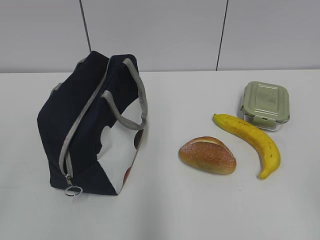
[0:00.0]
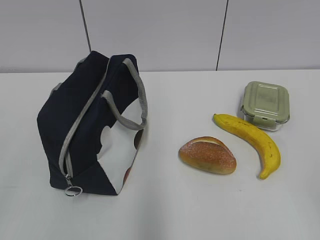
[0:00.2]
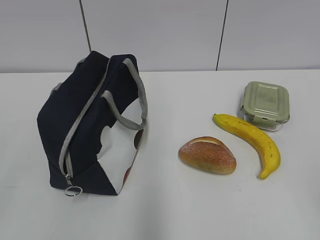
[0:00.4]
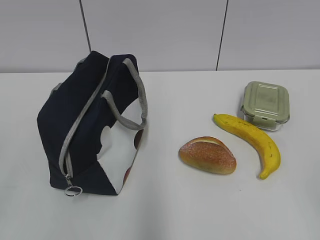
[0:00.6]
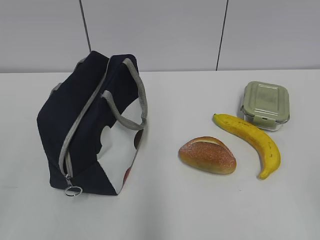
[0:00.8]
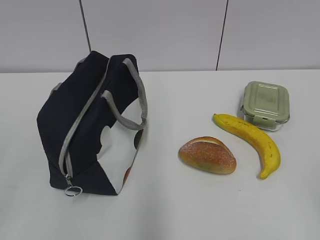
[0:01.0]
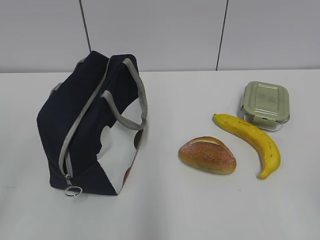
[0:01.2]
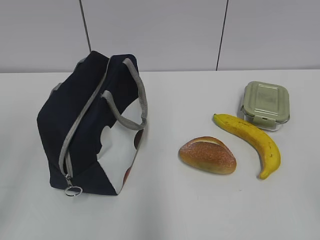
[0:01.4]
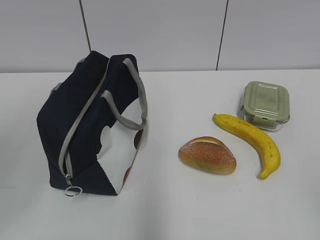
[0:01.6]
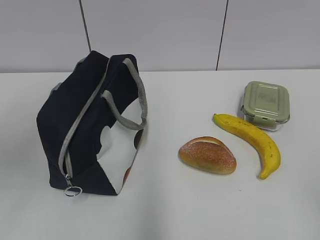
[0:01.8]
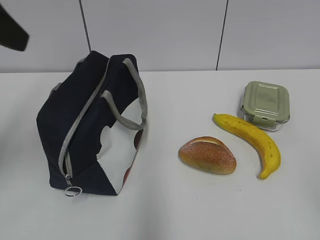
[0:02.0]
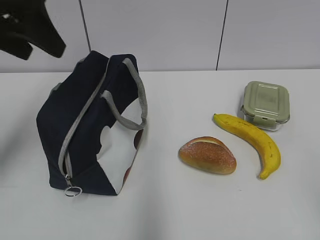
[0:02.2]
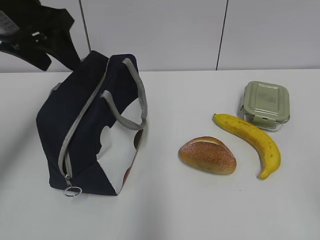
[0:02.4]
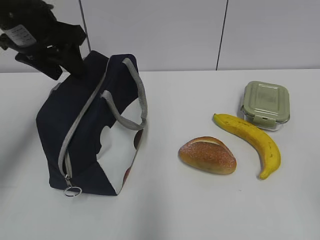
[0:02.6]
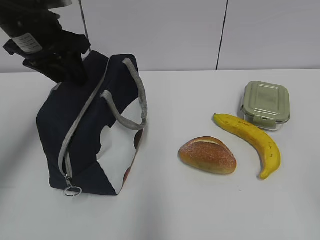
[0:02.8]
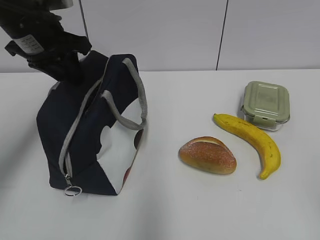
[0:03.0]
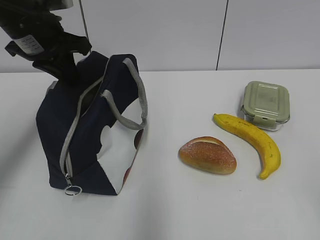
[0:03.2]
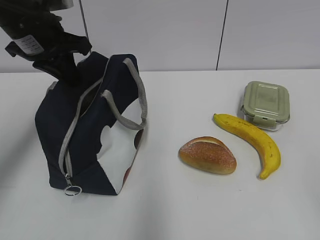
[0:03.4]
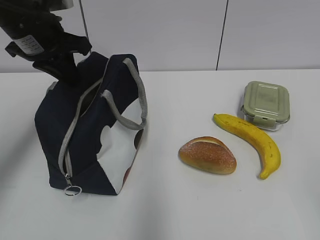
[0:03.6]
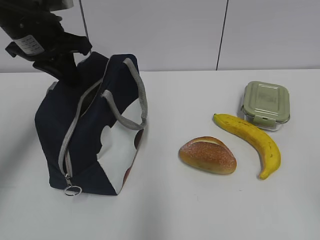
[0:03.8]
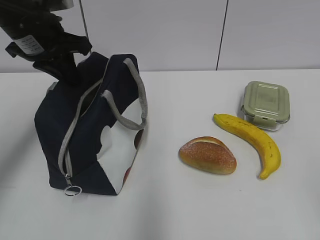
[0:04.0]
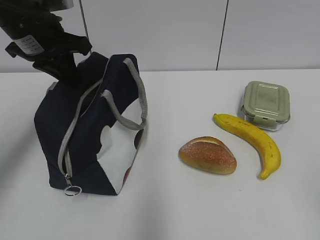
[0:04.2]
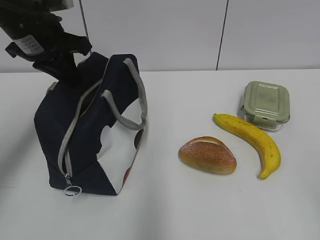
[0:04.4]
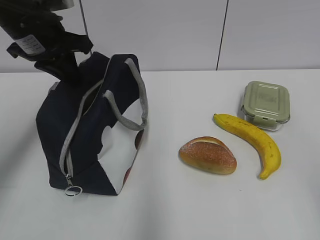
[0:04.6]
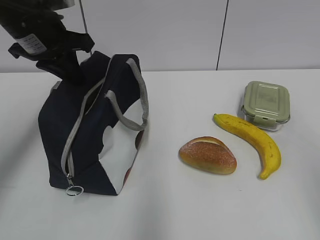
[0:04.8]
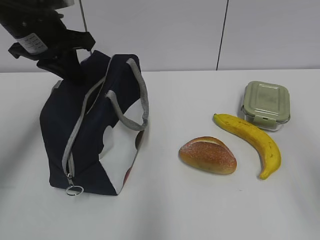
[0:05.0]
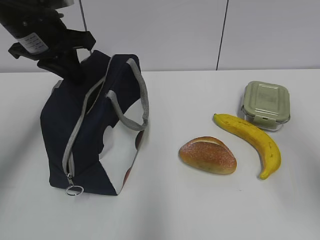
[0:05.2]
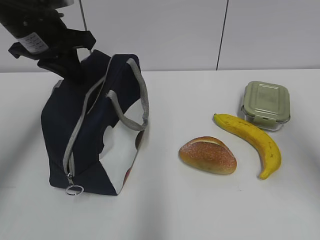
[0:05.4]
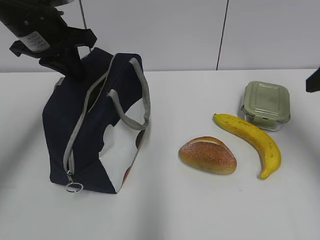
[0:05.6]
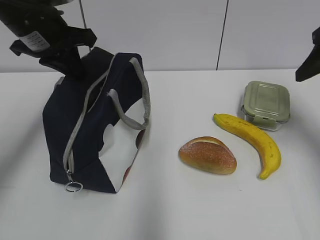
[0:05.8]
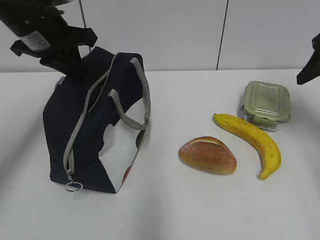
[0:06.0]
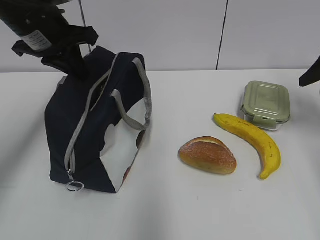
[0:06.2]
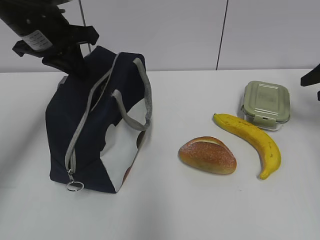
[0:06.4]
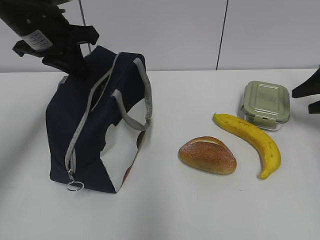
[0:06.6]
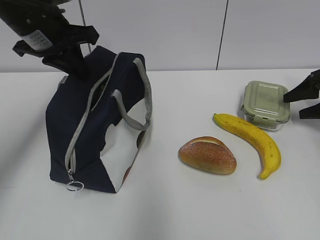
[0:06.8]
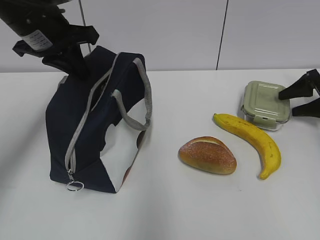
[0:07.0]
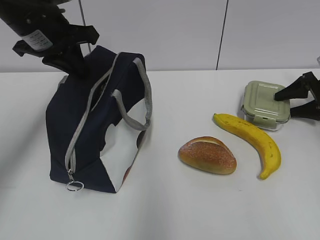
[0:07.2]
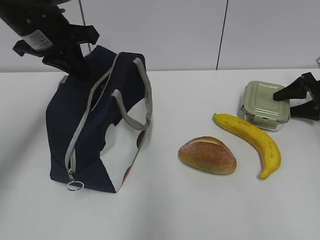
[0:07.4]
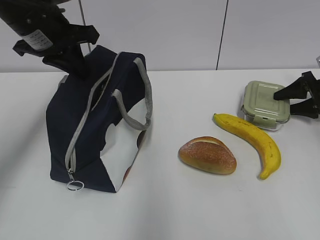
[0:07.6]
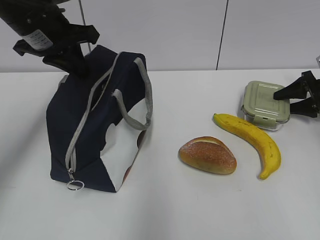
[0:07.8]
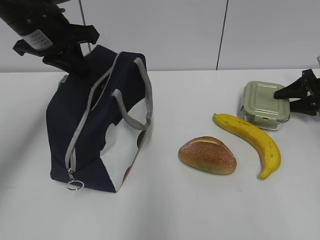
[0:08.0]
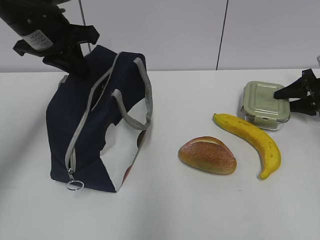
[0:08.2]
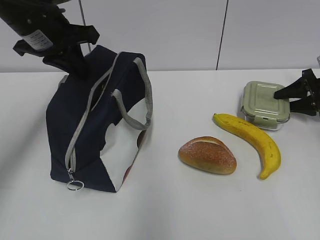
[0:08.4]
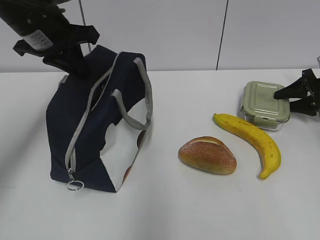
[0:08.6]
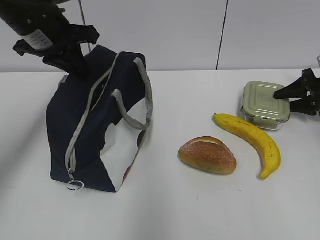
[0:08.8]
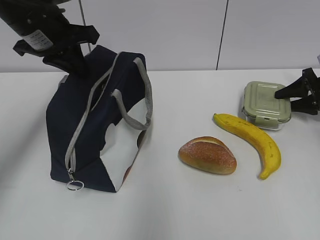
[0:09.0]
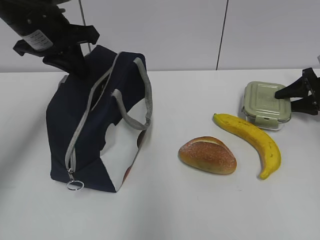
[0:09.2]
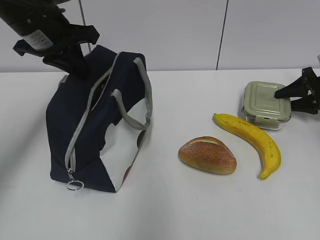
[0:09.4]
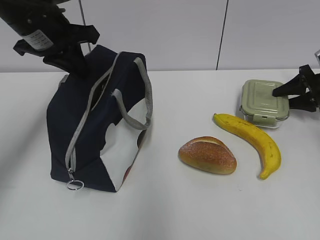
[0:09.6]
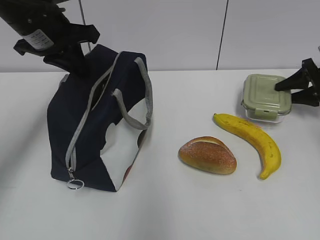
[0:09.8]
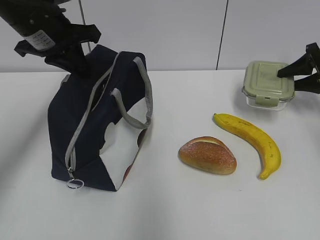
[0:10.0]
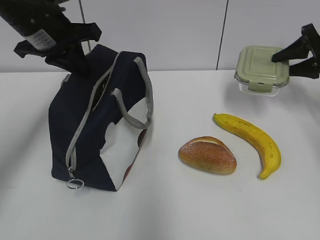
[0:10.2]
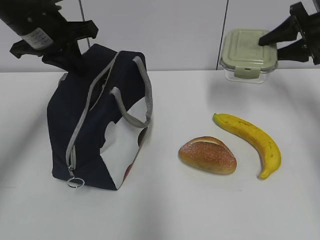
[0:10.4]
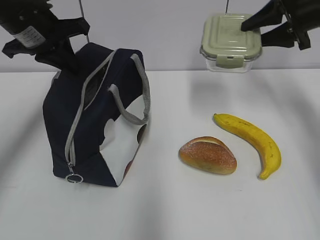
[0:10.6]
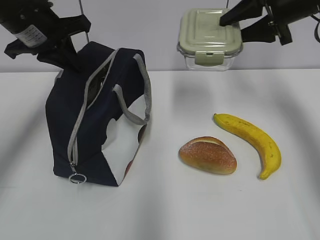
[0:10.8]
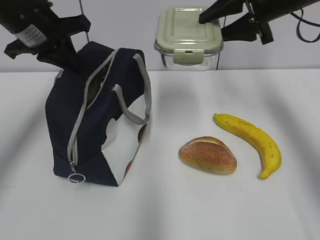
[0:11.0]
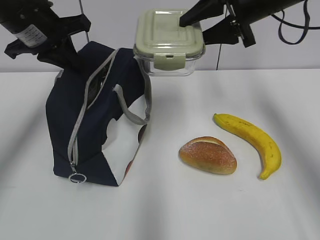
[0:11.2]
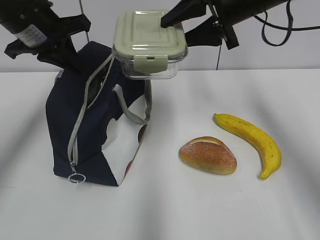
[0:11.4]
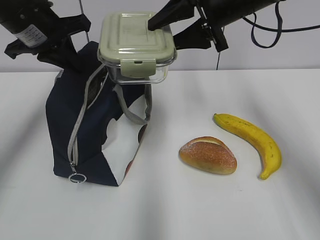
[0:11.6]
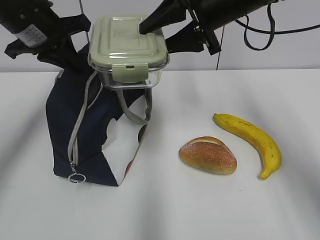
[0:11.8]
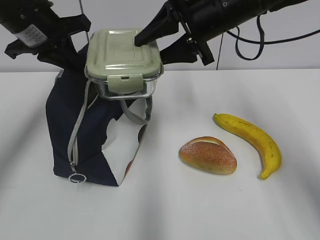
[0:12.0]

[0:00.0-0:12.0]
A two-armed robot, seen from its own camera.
0:01.6 to 0:03.0: The left gripper moves forward, approximately 25 cm, and closes up.
0:03.0 to 0:04.4: The left gripper closes its fingers.
0:04.4 to 0:06.0: The right gripper moves forward, roughly 35 cm.
0:06.0 to 0:07.6: The right gripper is displaced downward, forward and to the right by approximately 20 cm.
0:07.6 to 0:09.0: The two grippers keep their place.
0:09.0 to 0:10.4: The right gripper heads upward and to the left, covering about 15 cm.
0:10.4 to 0:12.0: The right gripper goes approximately 25 cm to the left.

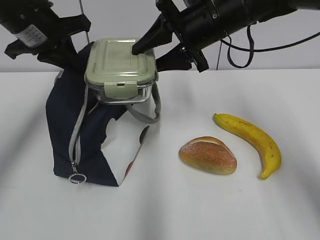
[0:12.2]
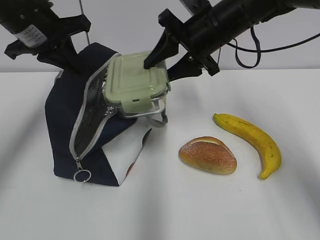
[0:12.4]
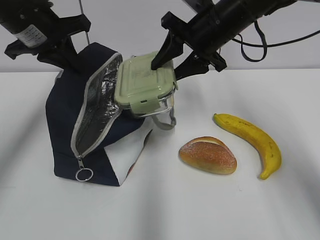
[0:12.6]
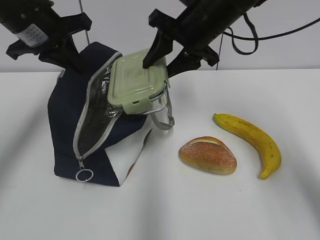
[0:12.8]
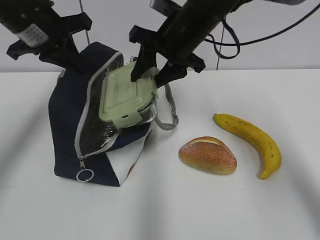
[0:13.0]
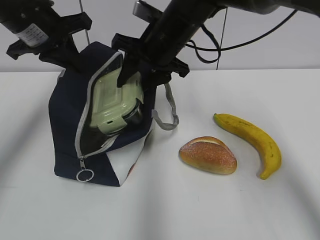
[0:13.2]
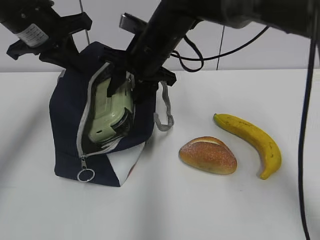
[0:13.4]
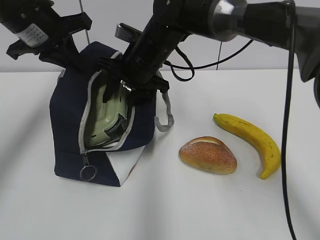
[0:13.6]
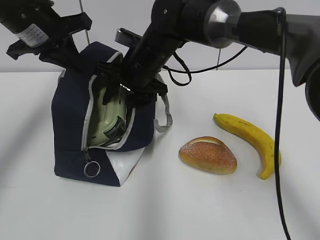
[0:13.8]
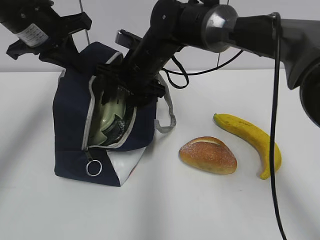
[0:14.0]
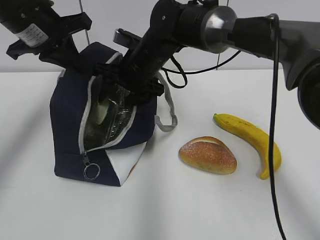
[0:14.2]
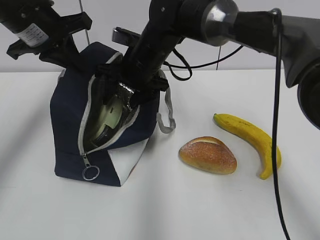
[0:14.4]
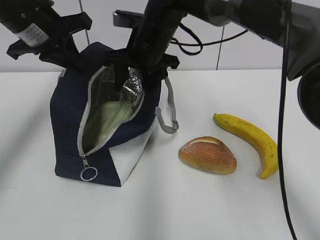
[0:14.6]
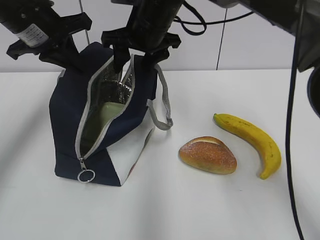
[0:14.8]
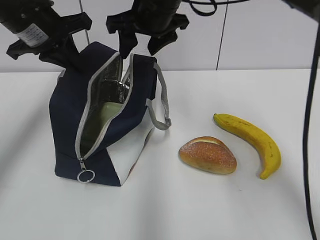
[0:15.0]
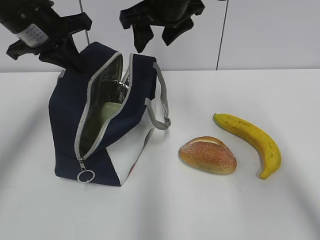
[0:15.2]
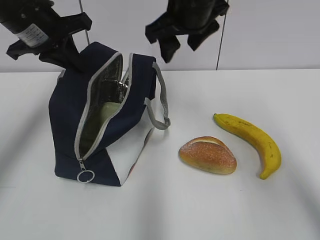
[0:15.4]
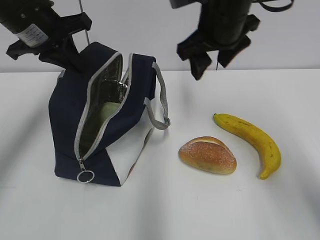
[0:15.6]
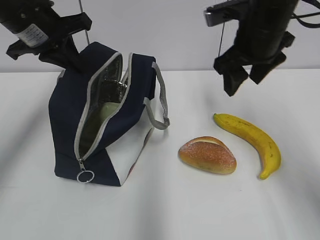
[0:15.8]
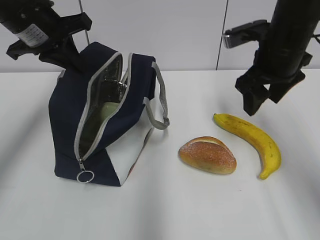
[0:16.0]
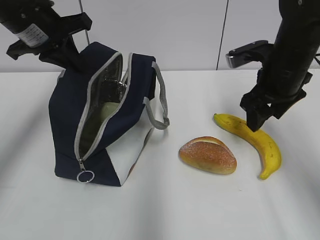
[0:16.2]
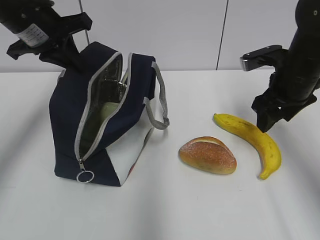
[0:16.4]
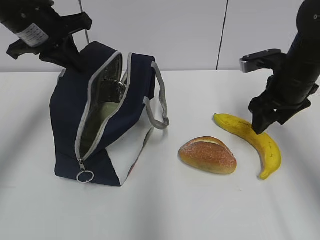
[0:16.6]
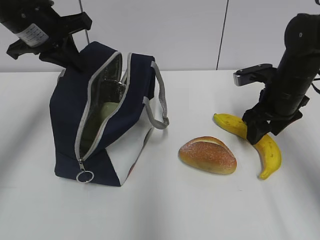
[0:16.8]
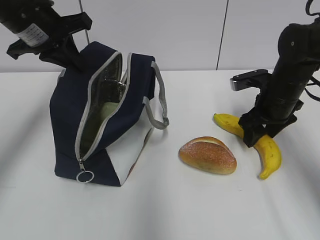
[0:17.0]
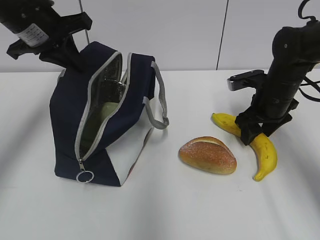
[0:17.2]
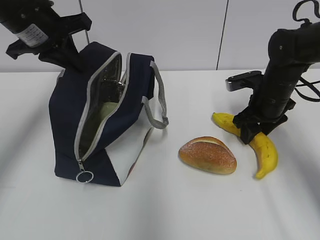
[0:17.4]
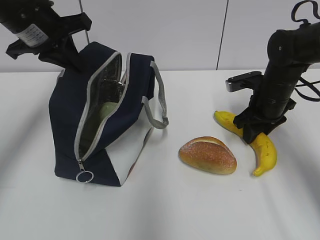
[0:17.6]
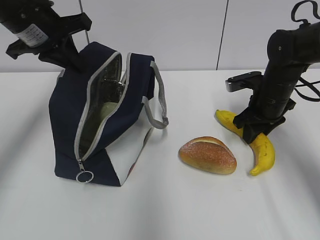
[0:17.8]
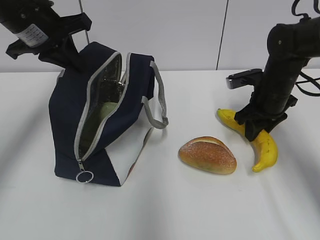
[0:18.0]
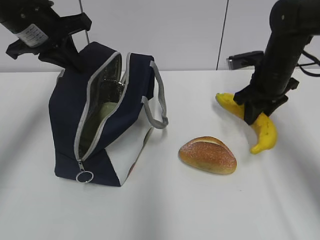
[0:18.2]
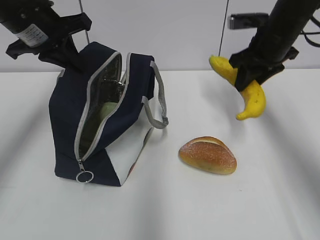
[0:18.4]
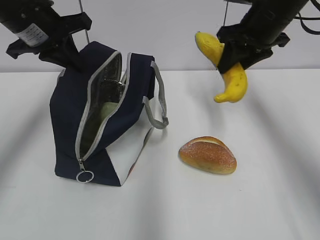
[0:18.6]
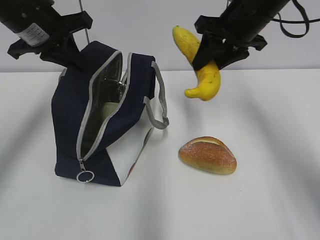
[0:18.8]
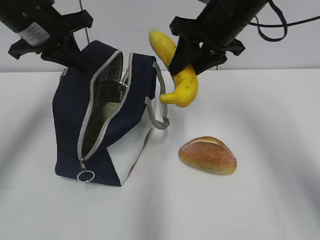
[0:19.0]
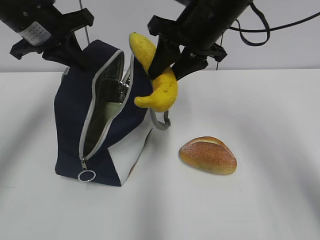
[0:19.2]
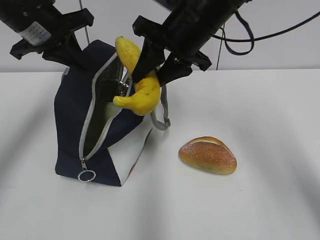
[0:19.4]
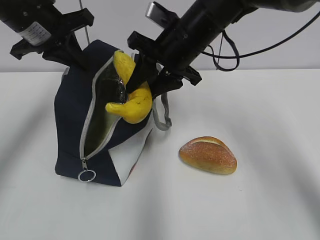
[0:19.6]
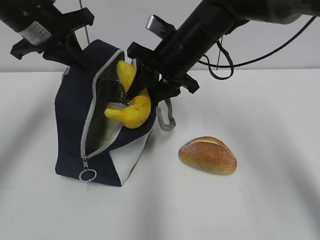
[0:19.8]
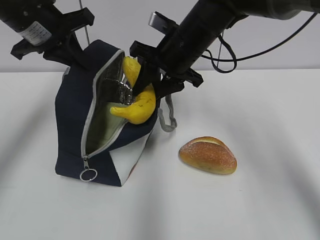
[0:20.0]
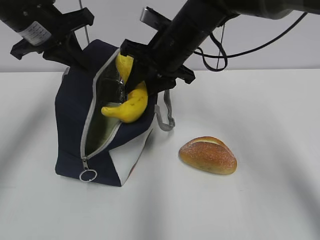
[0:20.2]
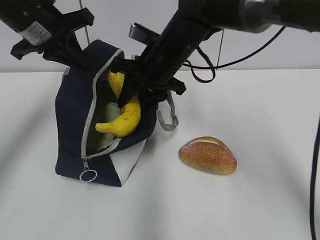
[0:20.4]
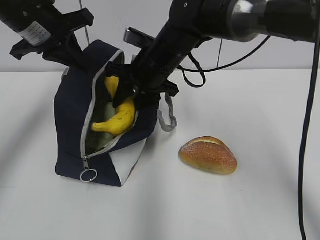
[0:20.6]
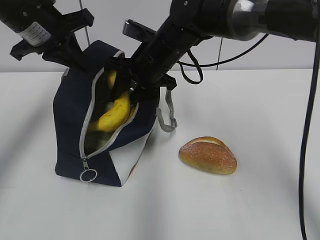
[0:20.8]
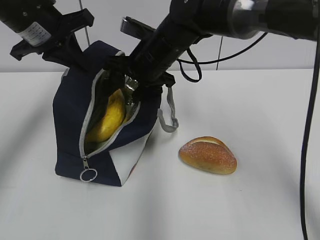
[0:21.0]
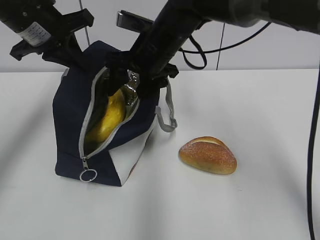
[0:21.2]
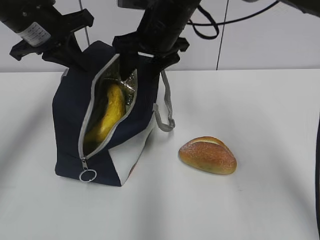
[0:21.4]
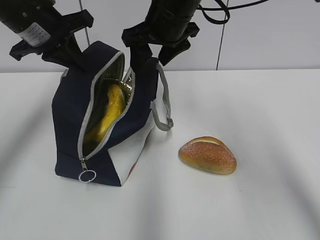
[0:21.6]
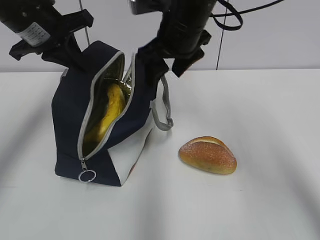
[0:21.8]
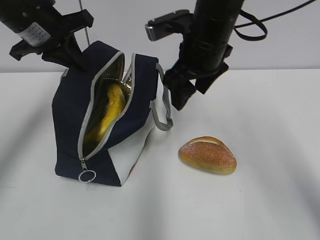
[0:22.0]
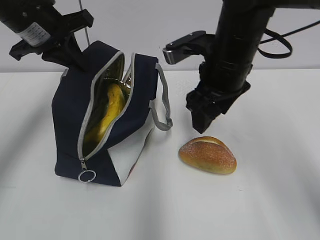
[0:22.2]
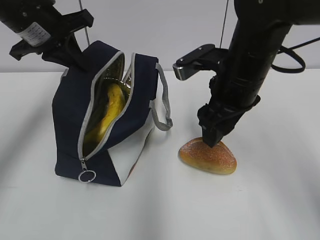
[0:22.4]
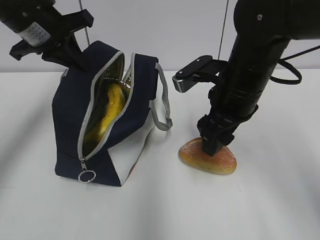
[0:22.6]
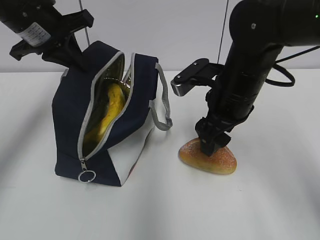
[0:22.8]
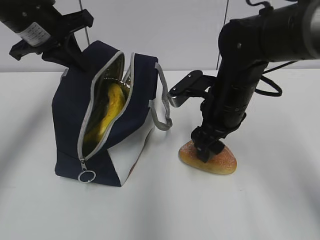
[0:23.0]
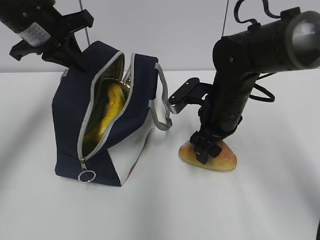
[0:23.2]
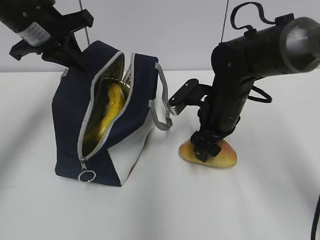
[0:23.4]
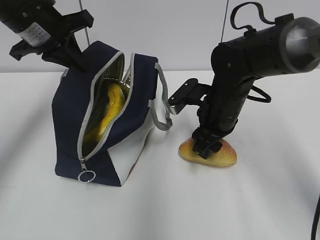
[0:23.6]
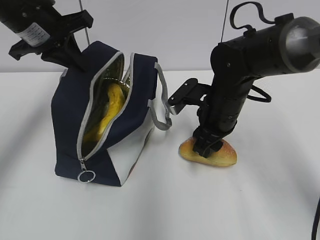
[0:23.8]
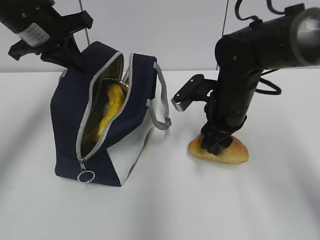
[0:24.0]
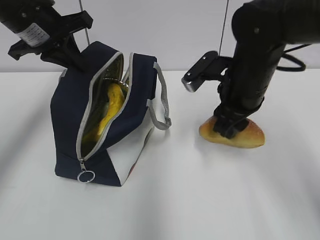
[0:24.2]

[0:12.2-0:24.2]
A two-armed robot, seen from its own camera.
0:12.2 to 0:13.8: The right gripper goes about 15 cm to the left and downward.
0:13.8 to 0:15.2: The right gripper heads upward, covering approximately 10 cm.
0:15.2 to 0:16.6: The right gripper travels to the right and downward by approximately 25 cm.
0:16.6 to 0:18.2: The right gripper heads forward, covering roughly 5 cm, and closes its fingers.
0:18.2 to 0:19.8: The right gripper travels to the left by roughly 15 cm.
0:19.8 to 0:21.2: The right gripper opens its fingers.
0:21.2 to 0:22.6: The right gripper is displaced to the right and backward by roughly 15 cm.
0:22.6 to 0:24.2: The right gripper closes its fingers.
